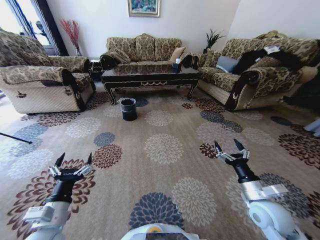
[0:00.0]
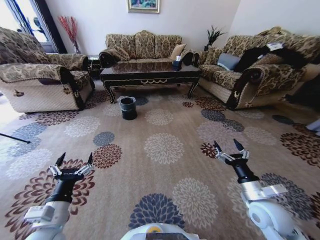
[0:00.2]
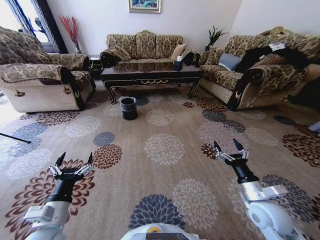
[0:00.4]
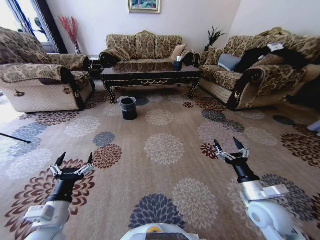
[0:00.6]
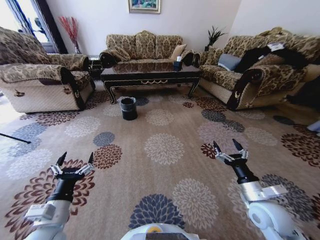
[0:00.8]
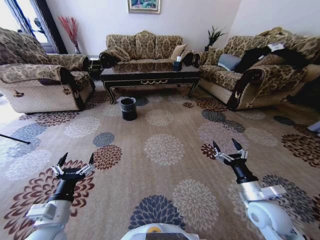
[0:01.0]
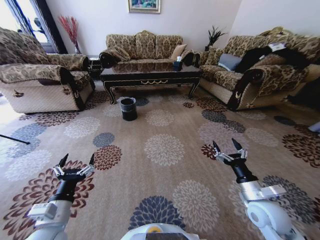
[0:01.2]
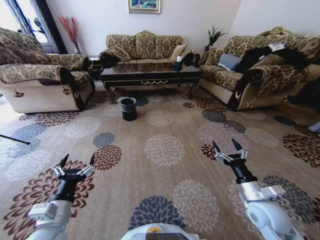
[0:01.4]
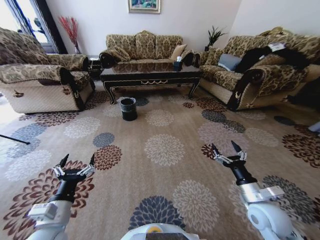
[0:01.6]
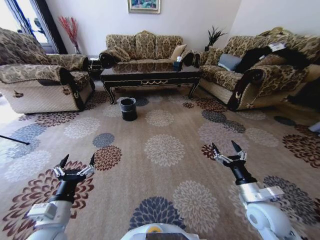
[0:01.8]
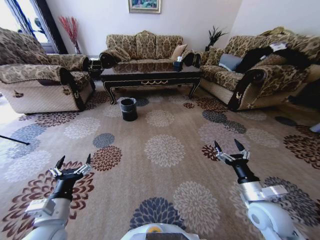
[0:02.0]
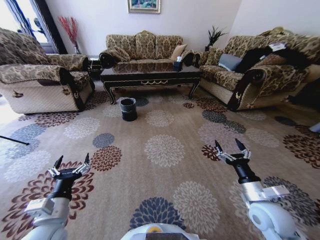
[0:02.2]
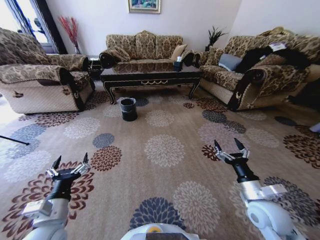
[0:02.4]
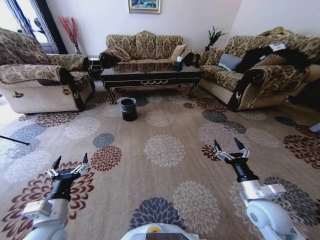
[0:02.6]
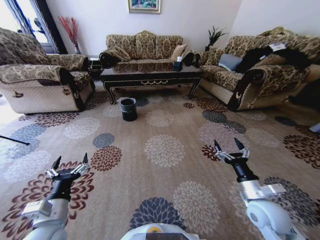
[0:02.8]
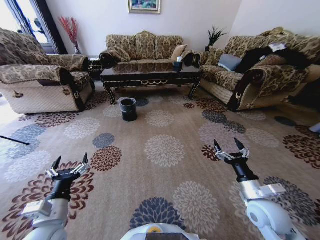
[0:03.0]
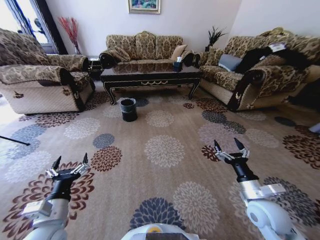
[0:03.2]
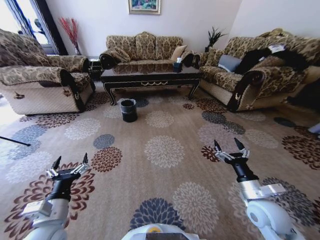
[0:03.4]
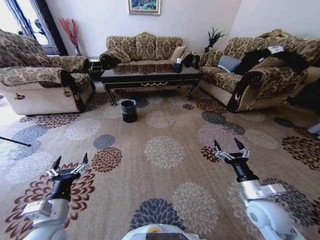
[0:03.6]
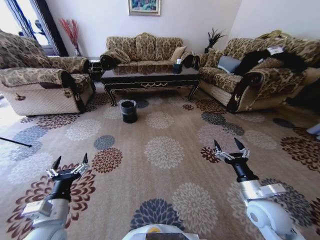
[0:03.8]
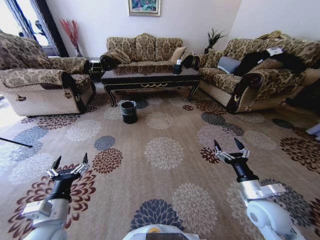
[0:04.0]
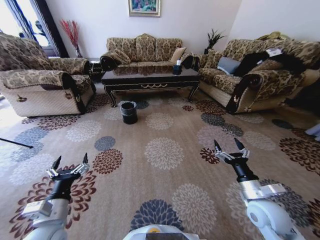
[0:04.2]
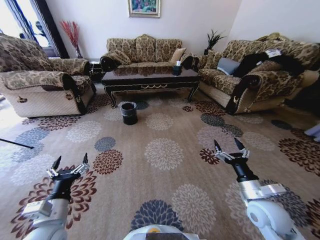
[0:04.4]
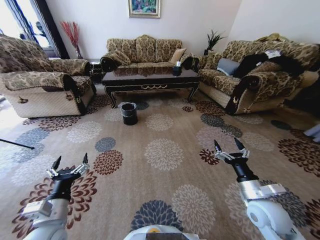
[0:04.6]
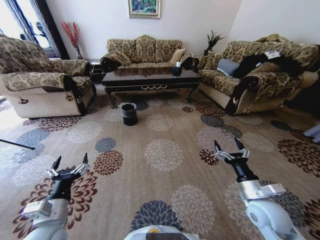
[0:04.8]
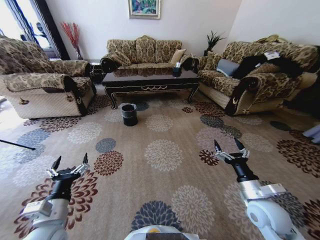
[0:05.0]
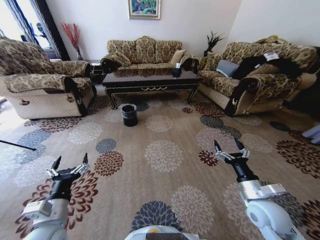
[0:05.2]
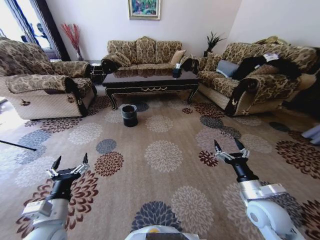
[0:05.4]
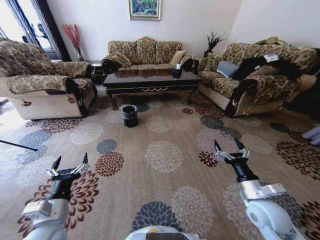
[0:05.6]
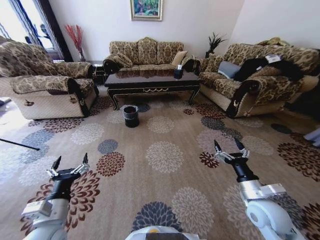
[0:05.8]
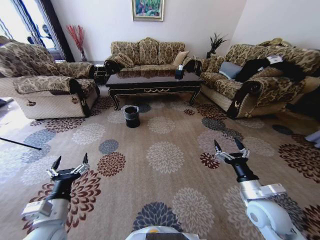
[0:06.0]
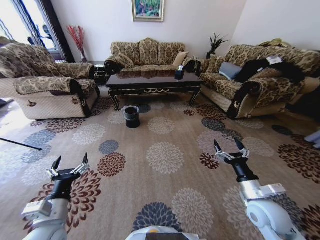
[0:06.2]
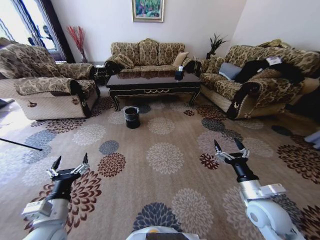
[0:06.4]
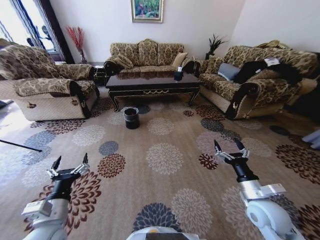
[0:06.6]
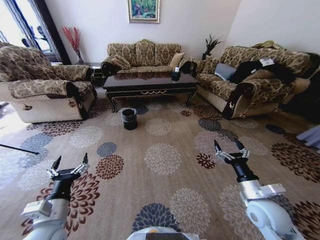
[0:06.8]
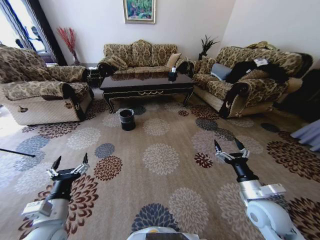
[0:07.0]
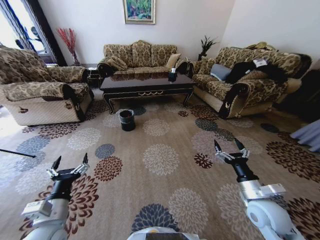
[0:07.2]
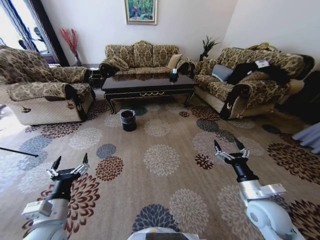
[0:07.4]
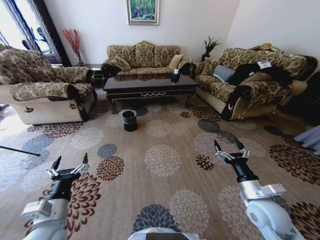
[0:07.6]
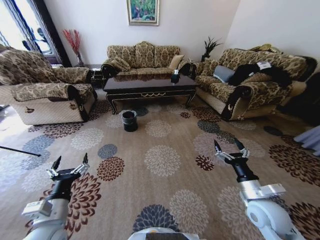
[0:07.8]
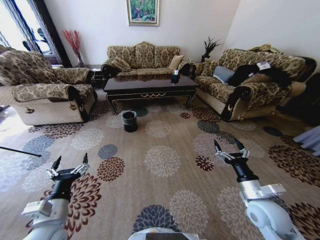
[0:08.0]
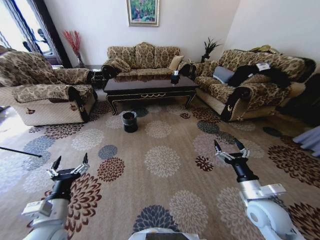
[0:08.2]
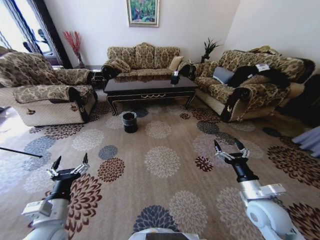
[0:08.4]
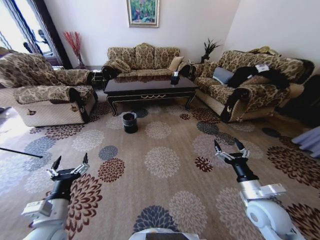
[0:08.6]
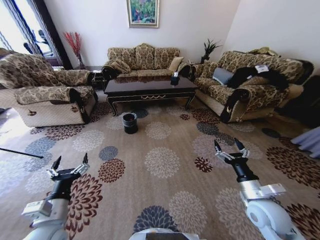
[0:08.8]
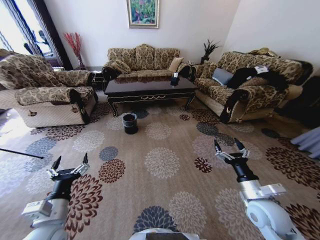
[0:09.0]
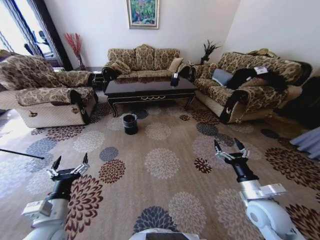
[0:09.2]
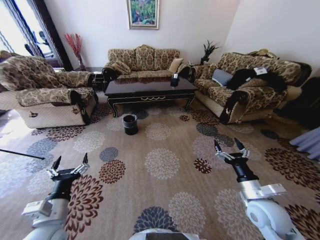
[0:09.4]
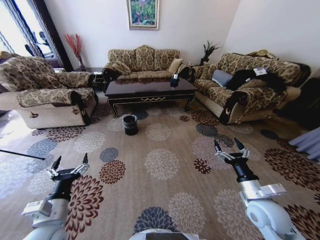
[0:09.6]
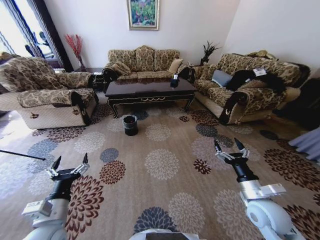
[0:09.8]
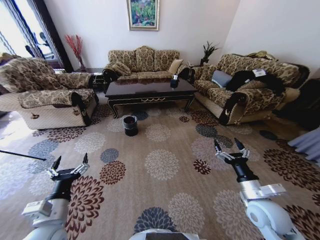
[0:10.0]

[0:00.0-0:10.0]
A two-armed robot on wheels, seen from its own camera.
Task of the whole recording: Move to the front of the table and pick up the trash from the floor, then place it into the trash bin.
0:00.0 to 0:01.4: Both grippers stay about where they are.
0:01.4 to 0:02.8: There are only small adjustments of the grippers.
0:08.6 to 0:10.0: Neither gripper changes place.

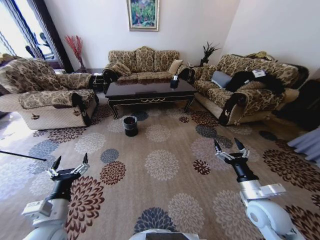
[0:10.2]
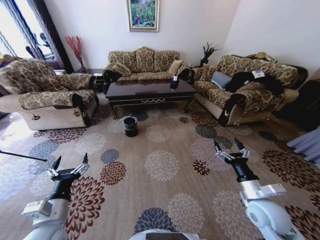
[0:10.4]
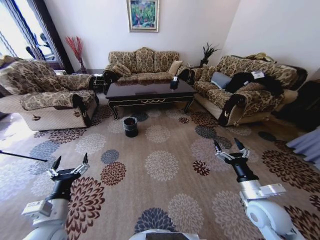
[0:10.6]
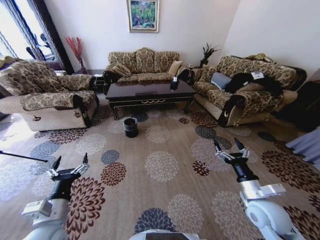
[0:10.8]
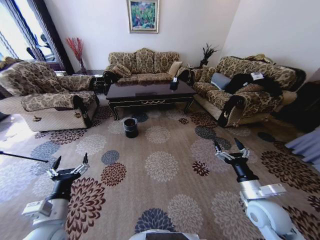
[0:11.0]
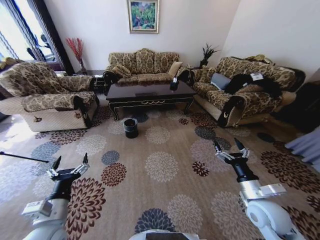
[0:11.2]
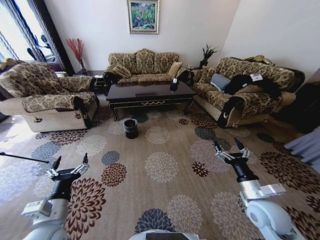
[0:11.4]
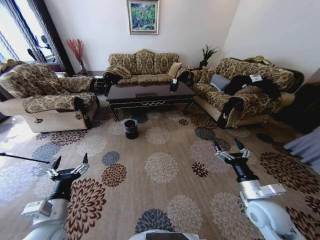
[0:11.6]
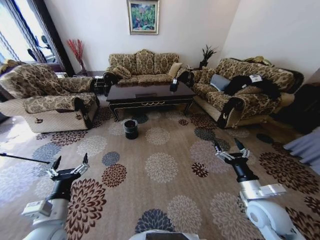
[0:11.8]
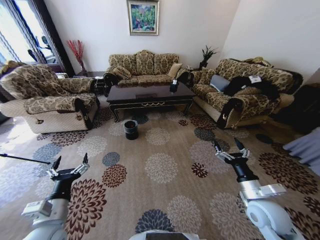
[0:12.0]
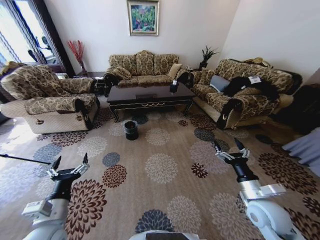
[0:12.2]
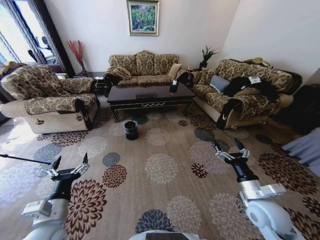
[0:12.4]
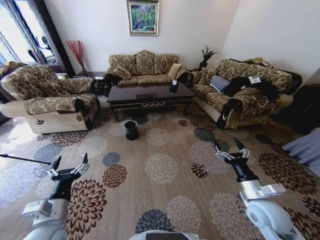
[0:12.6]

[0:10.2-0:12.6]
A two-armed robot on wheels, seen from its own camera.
Task of the whole recording: Move to the front of the table and pick up the trash from the floor, then place it into the trash bin.
0:10.2 to 0:12.6: Neither gripper changes place.

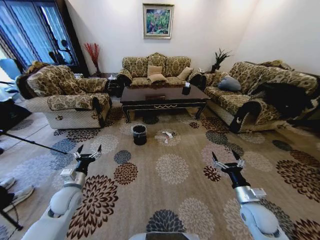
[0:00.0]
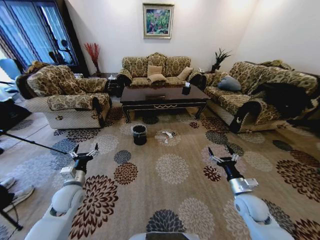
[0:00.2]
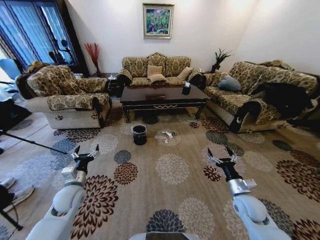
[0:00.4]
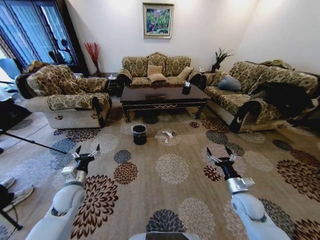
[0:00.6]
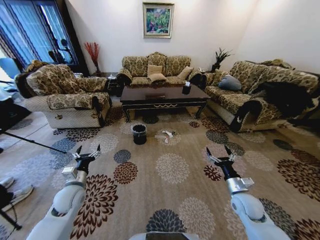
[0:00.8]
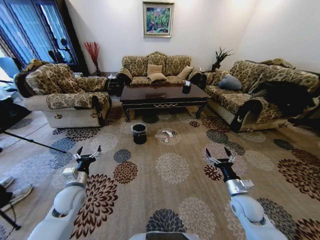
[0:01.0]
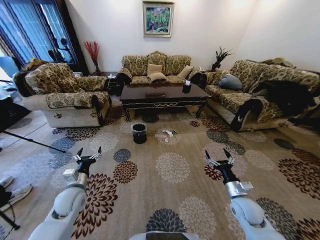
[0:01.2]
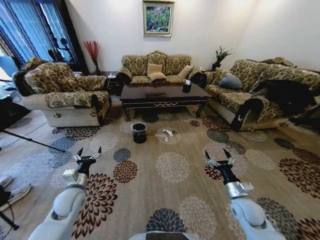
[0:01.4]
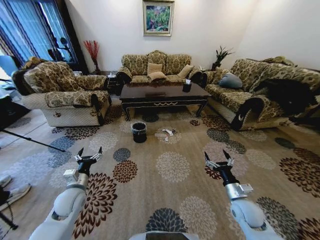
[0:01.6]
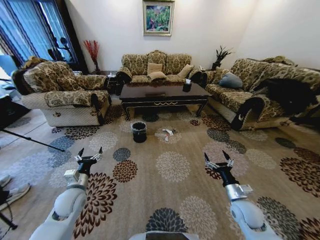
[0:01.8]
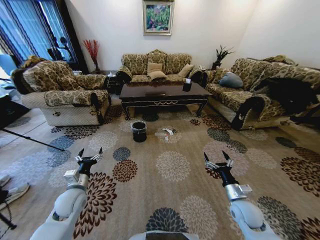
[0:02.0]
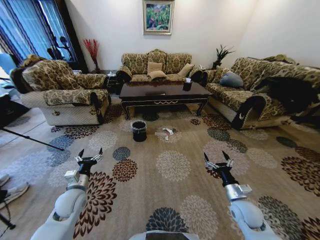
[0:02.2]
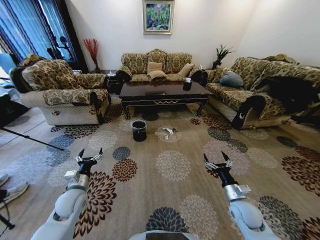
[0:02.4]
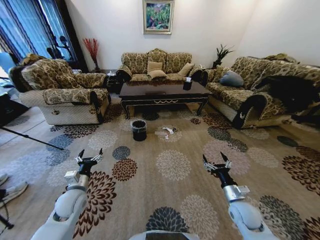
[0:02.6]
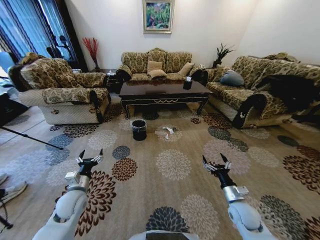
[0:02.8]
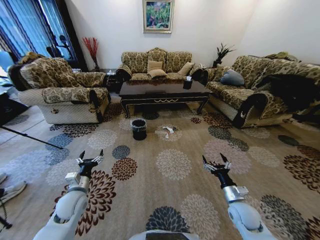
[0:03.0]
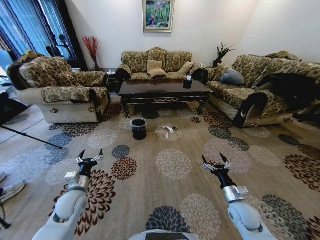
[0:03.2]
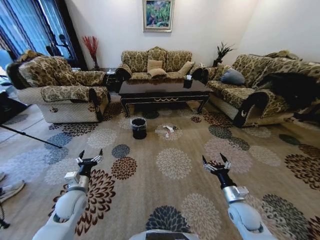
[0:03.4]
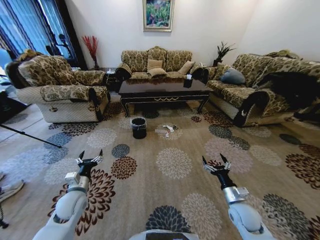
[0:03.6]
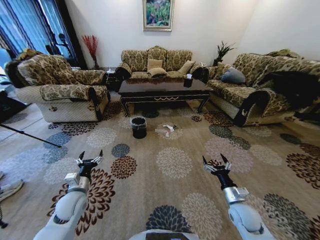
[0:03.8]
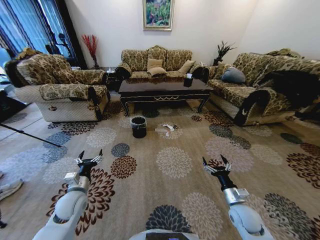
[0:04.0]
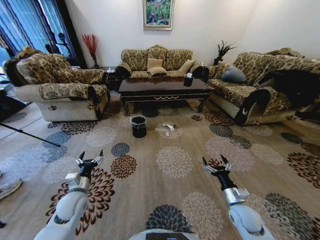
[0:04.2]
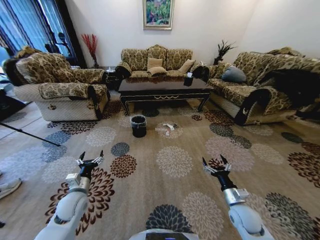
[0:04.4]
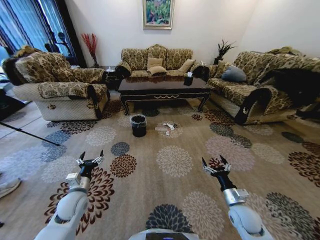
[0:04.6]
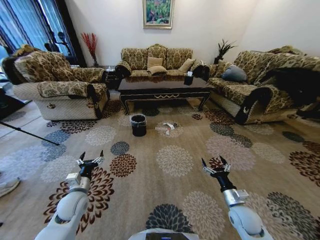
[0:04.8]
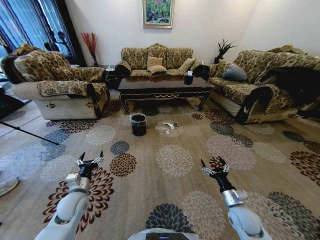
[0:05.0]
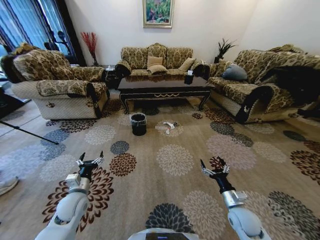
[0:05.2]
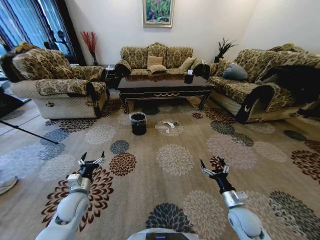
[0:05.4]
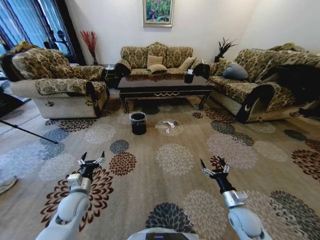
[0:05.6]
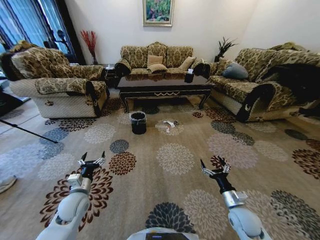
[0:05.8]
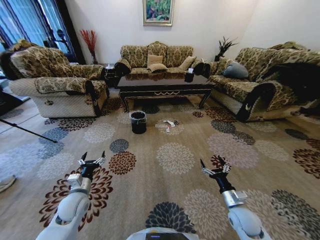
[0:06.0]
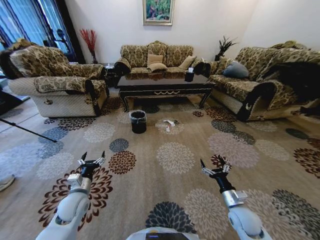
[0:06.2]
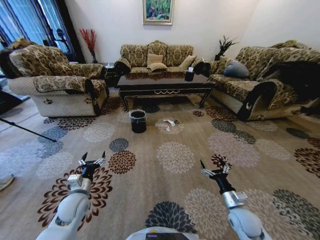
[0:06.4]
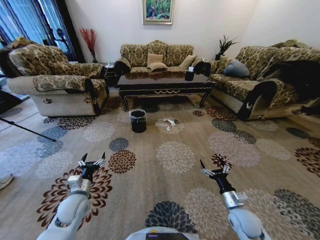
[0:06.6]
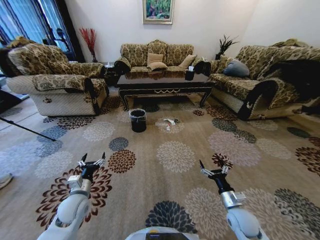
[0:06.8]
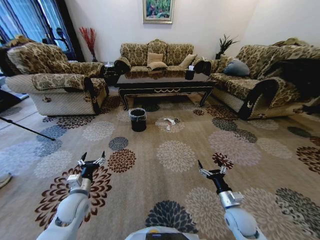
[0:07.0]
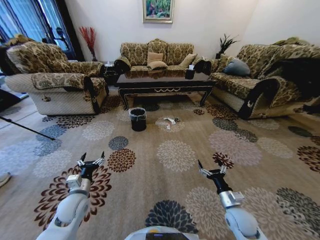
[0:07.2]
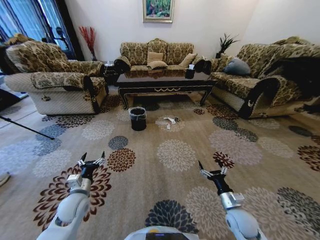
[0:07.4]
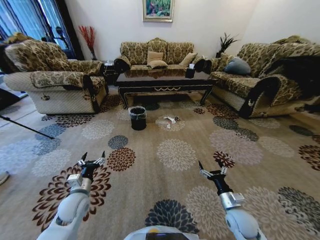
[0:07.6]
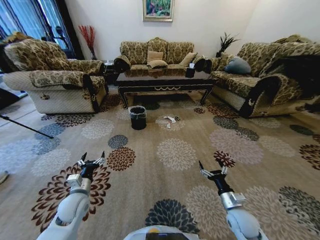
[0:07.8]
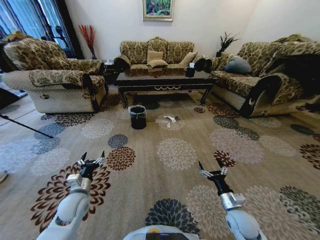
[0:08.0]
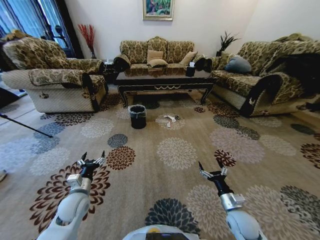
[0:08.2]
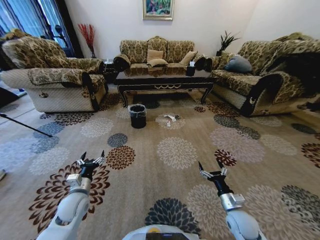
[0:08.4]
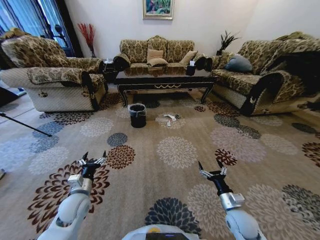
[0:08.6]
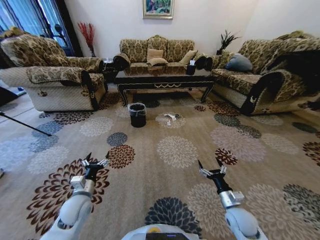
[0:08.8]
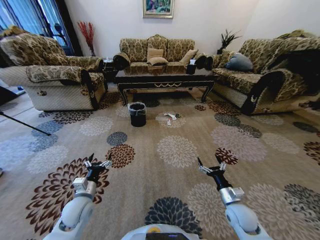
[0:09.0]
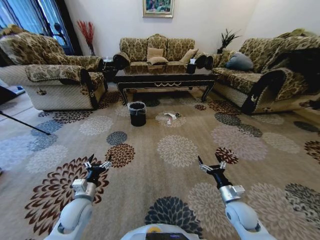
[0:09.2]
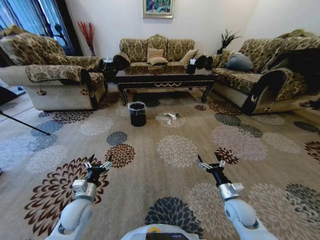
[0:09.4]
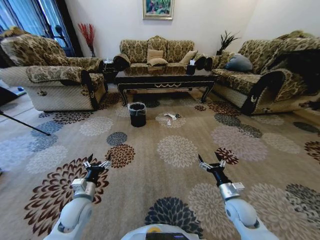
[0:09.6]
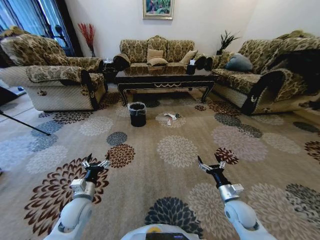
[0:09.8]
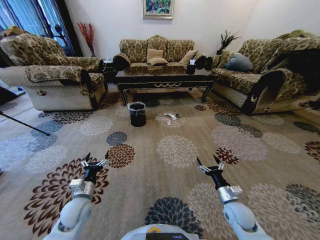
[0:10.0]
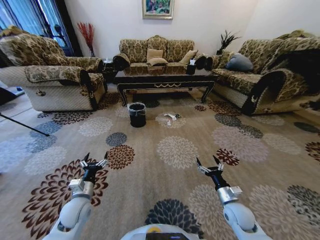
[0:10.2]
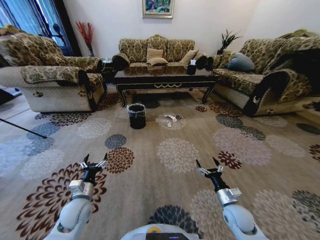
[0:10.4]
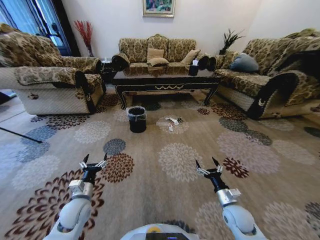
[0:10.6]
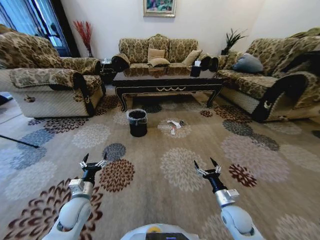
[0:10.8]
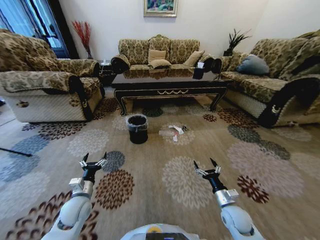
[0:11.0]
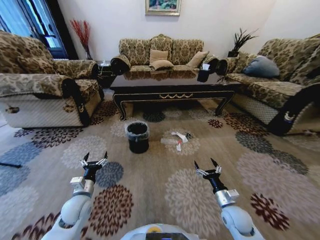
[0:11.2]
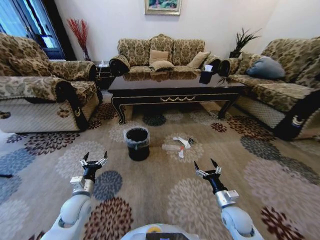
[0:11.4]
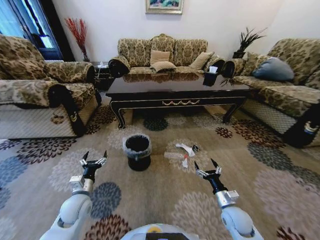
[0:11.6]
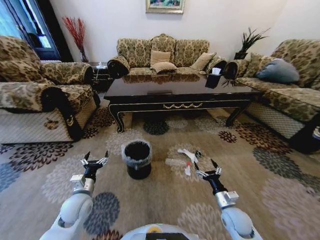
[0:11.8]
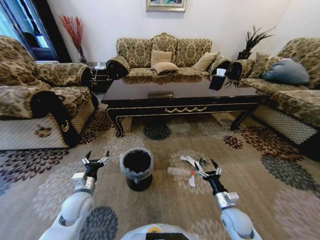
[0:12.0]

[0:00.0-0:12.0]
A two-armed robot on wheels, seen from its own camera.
Task of the whole recording: Move to the front of the table and pick up the trash from the floor, then place it into the trash bin.
0:09.0 to 0:10.4: There are only small adjustments of the grippers.
